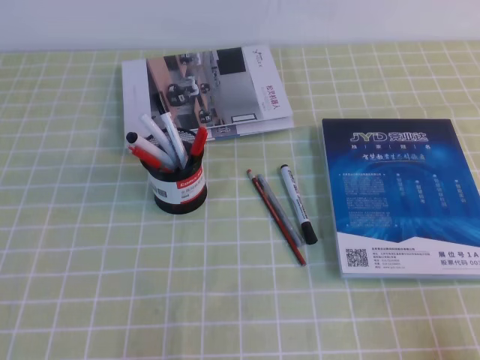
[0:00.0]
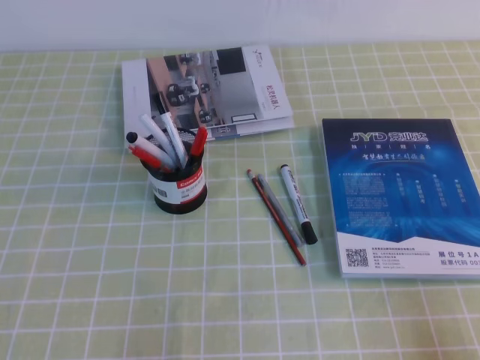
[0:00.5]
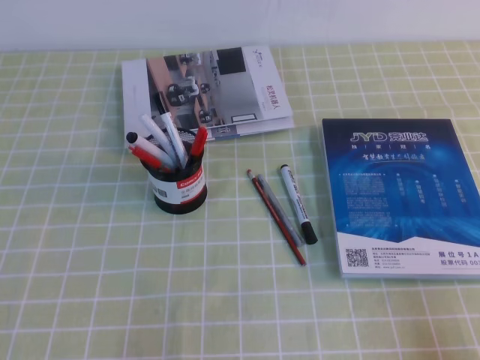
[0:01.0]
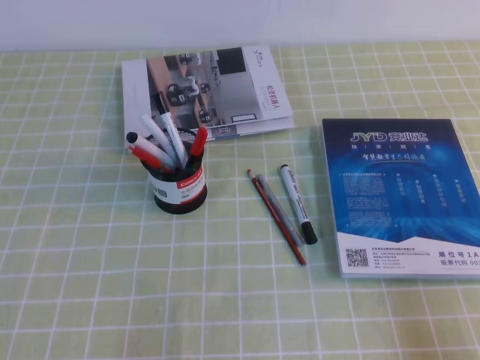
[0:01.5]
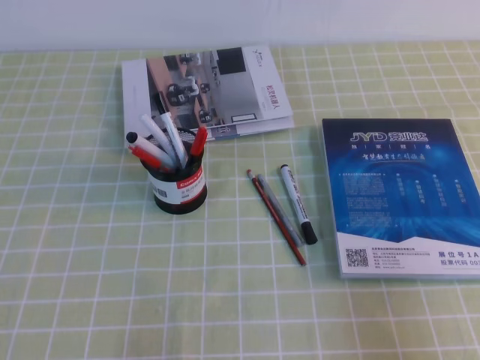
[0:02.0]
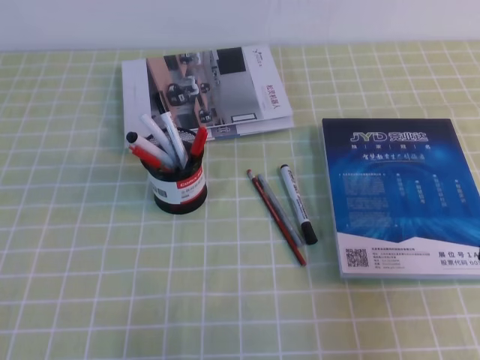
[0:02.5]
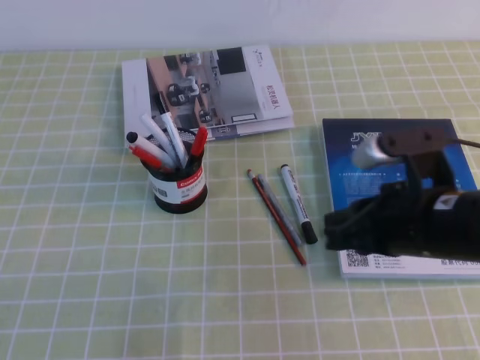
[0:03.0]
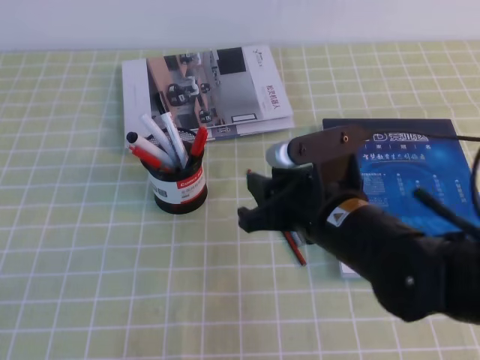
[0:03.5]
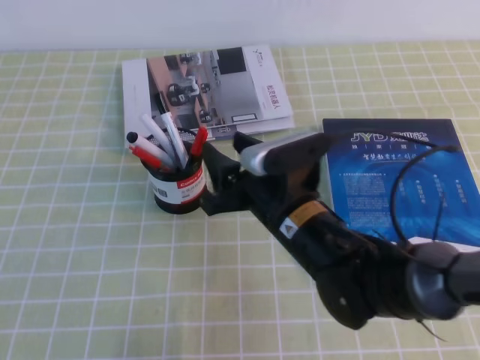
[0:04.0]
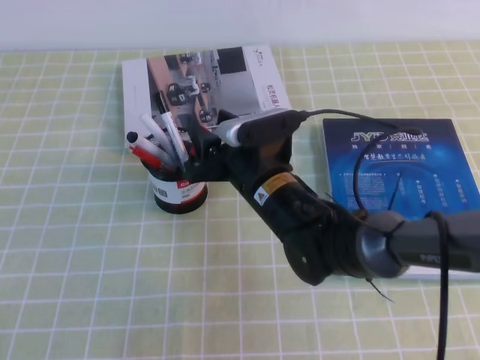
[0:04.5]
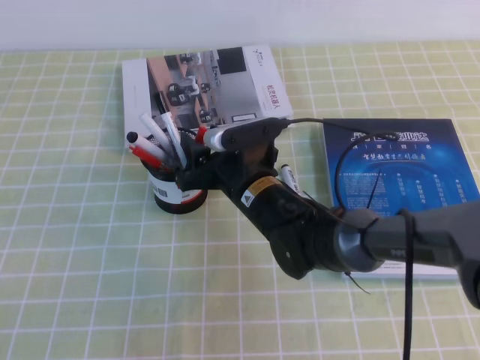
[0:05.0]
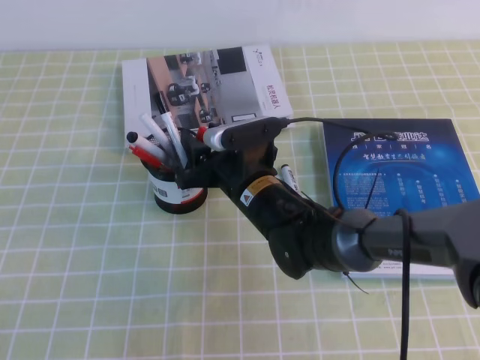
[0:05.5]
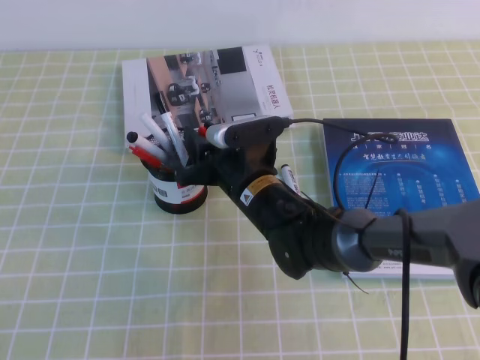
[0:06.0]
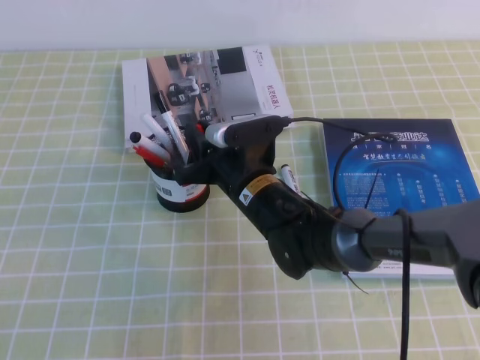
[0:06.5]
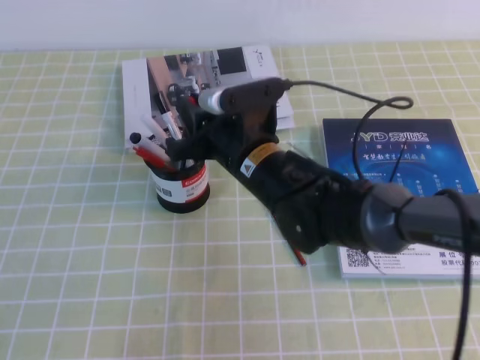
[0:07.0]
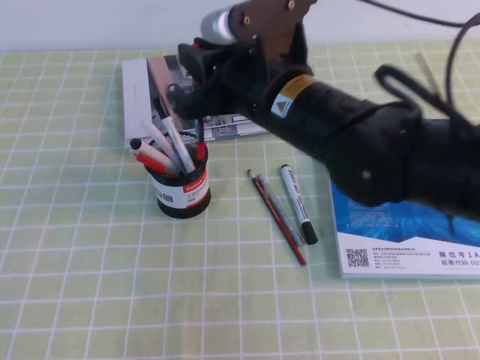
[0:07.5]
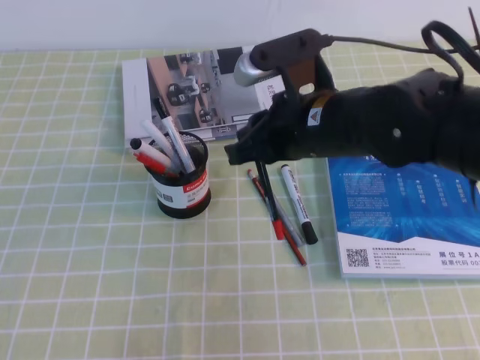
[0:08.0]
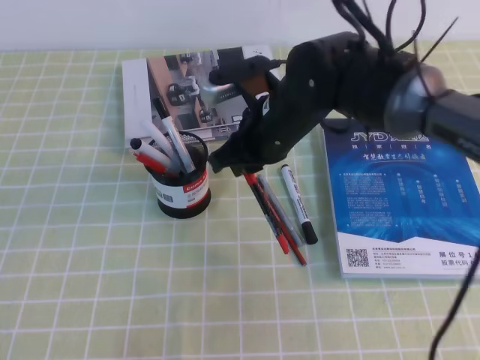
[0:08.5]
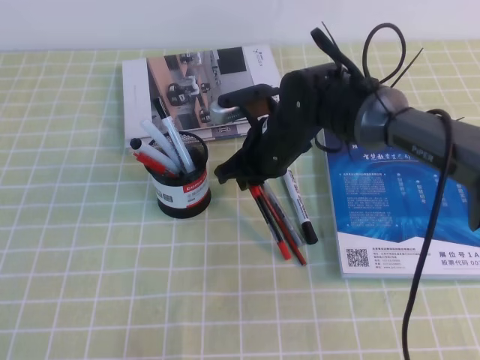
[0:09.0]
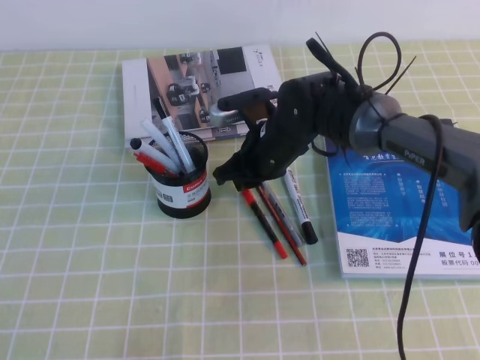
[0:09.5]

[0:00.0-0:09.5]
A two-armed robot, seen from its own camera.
0:00.0 to 0:02.0: The right gripper is displaced upward by some 5 cm.
0:02.0 to 0:04.0: The right gripper is displaced to the left and forward by roughly 35 cm, and opens.
0:04.0 to 0:05.5: The right gripper travels forward by roughly 5 cm.
0:05.5 to 0:07.5: The right gripper moves upward, some 15 cm, and closes its fingers.
0:07.5 to 0:09.5: The right gripper heads downward and forward, covering some 15 cm.

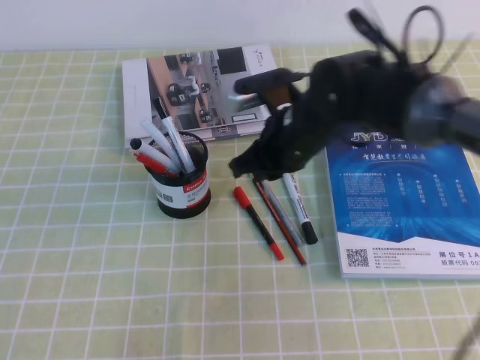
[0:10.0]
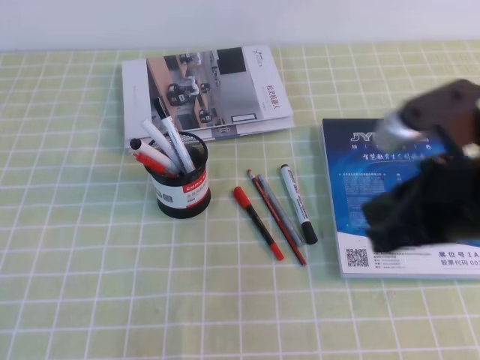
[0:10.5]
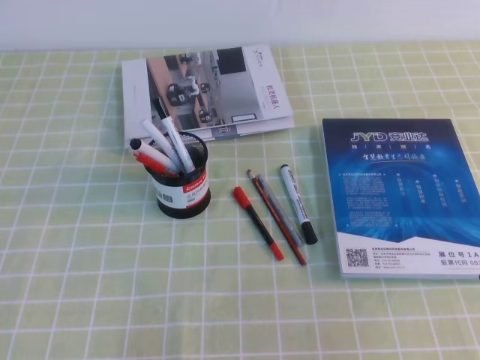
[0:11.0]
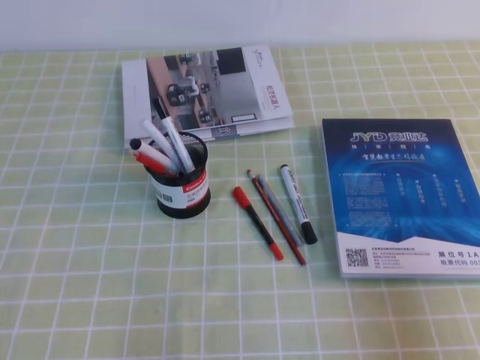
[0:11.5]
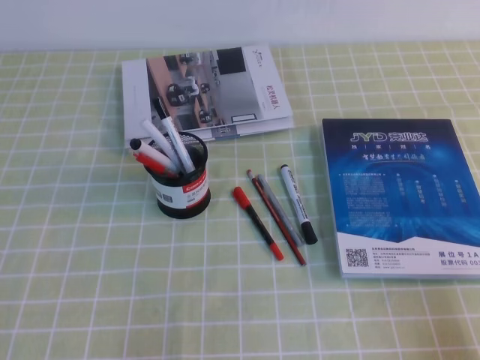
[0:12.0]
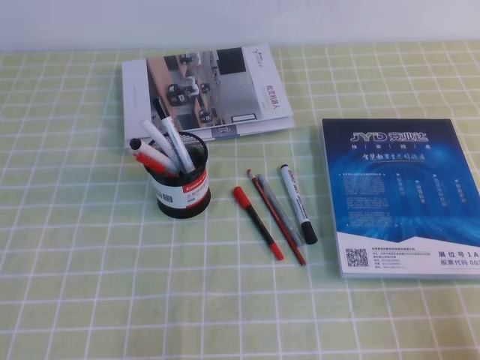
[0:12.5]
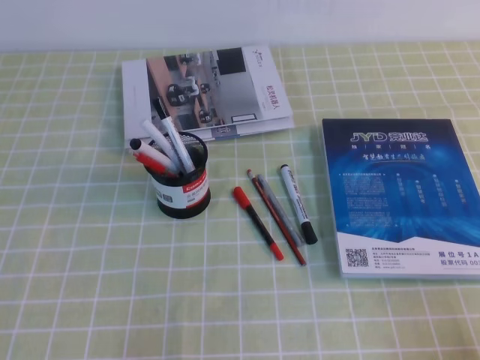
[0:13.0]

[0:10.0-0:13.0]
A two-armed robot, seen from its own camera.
Step, 0:10.0 to 0:13.0: Pick up the pen from the pen holder.
0:10.0 to 0:11.5: The right gripper shifts about 35 cm backward and to the right.
0:11.5 to 0:13.0: The right gripper goes some 5 cm downward.

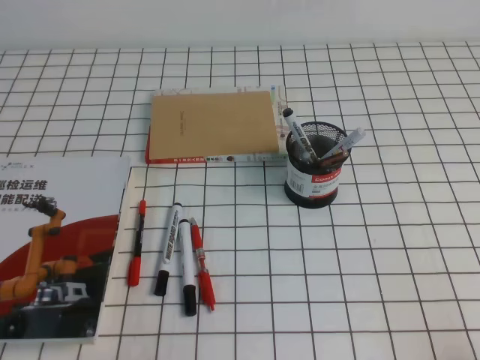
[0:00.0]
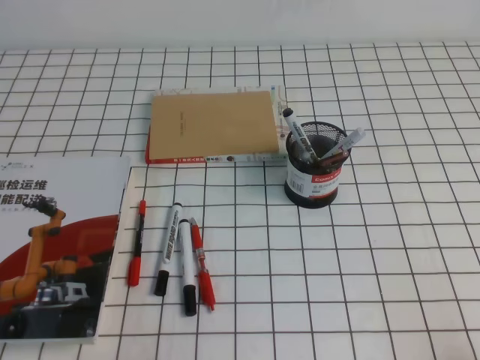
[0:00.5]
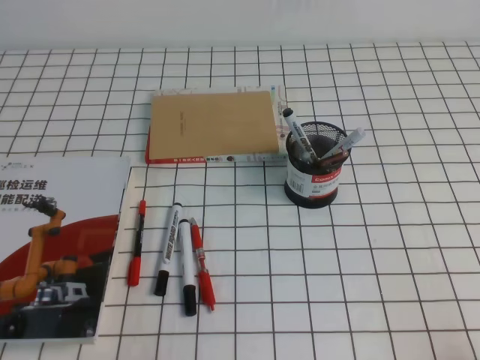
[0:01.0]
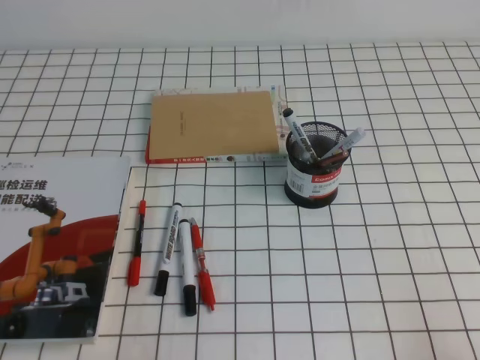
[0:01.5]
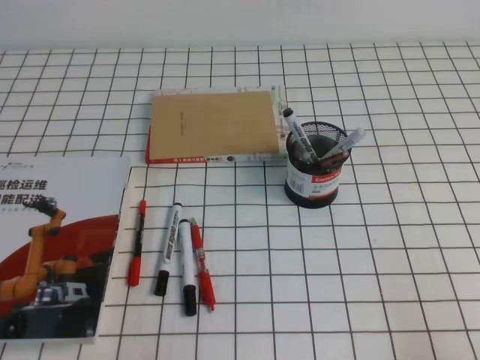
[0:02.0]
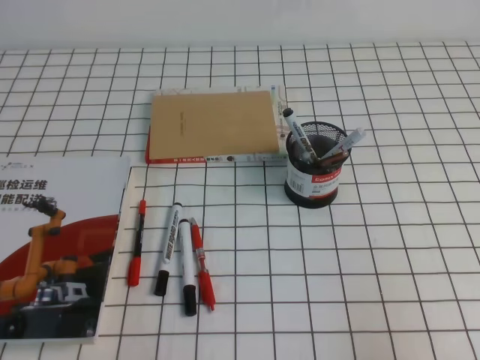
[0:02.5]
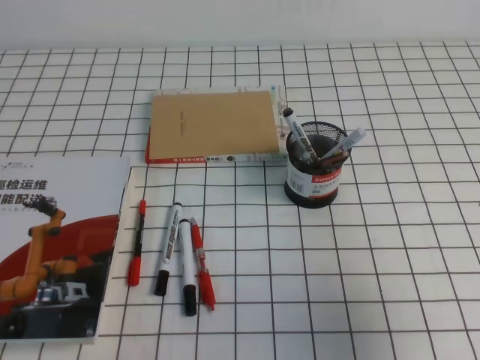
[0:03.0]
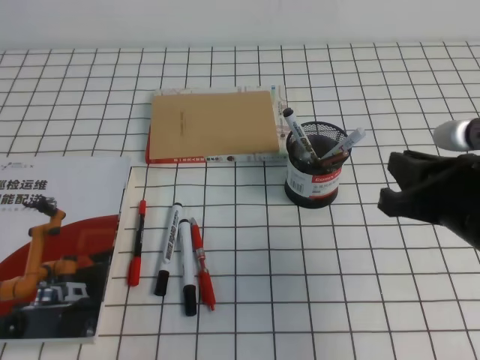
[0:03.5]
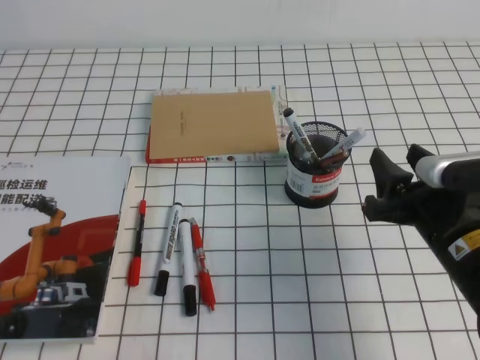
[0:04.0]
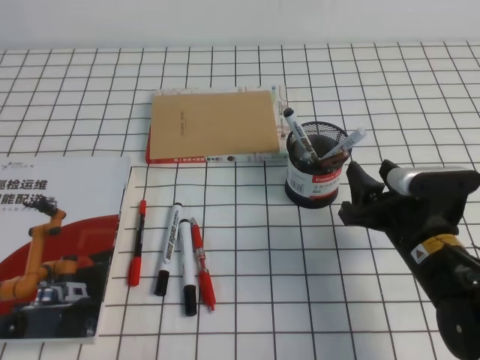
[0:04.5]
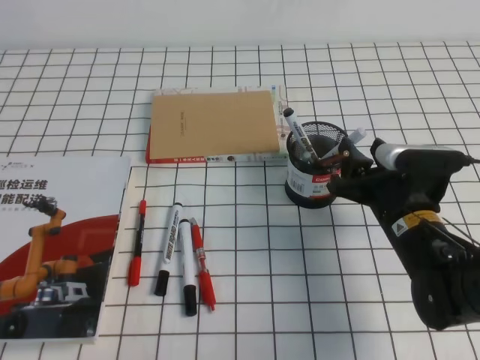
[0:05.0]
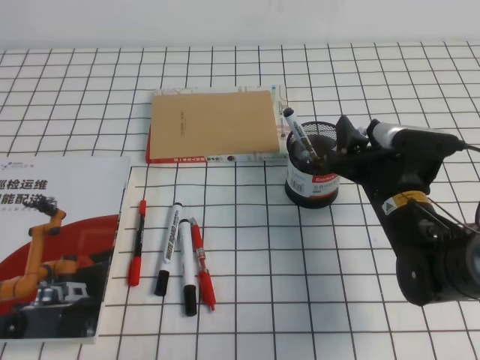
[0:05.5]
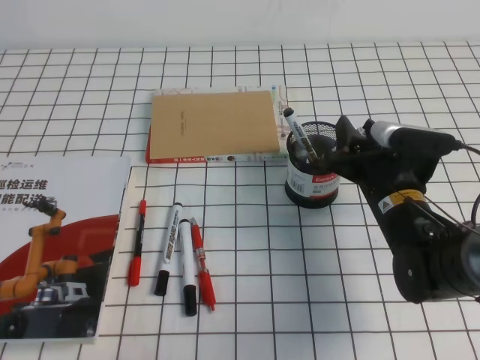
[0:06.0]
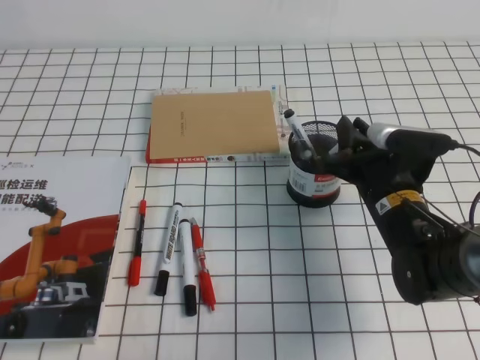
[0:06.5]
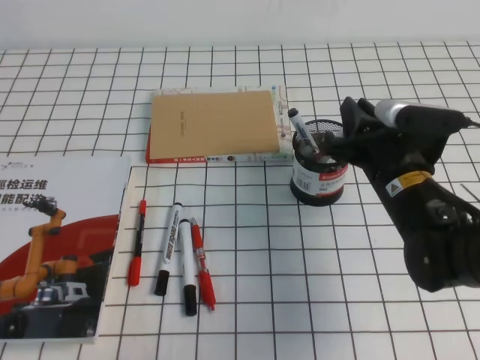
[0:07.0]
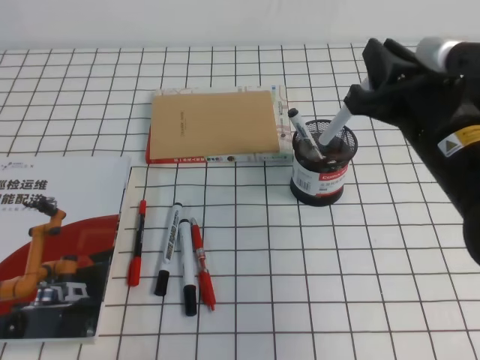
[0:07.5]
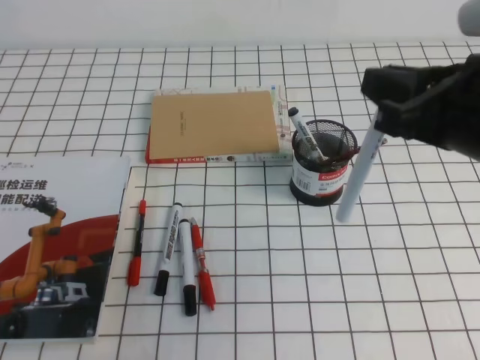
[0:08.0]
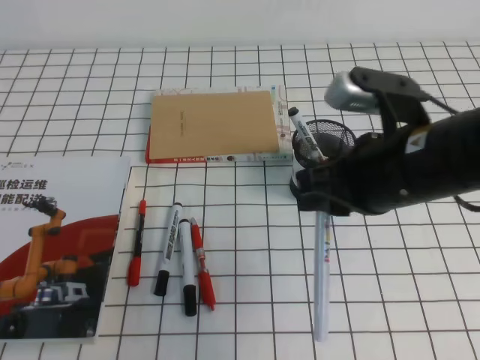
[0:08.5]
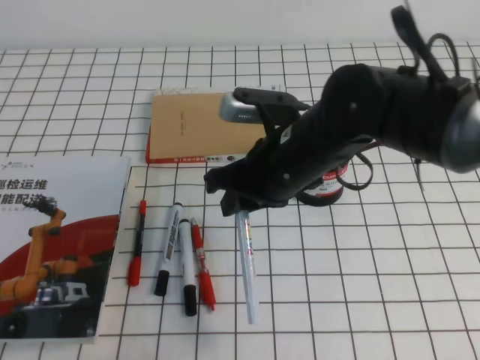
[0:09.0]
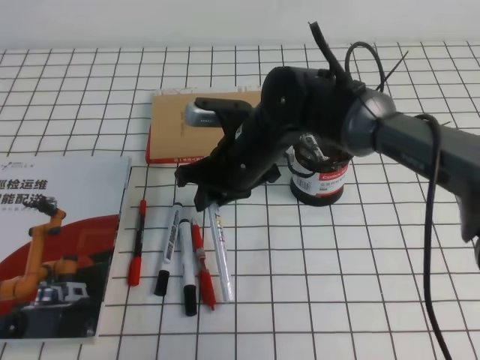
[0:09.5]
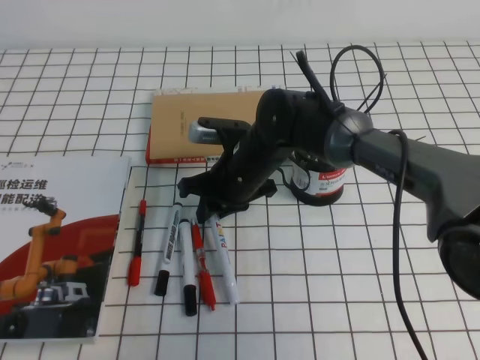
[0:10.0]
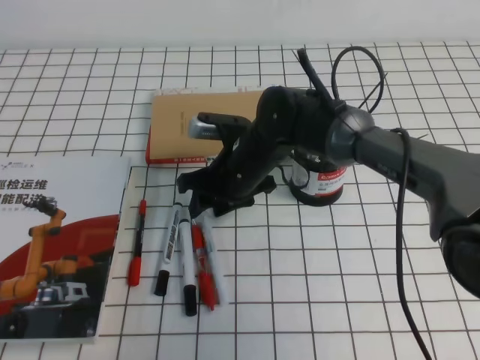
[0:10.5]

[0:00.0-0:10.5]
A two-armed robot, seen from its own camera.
0:02.0 to 0:04.0: The right gripper is displaced forward and to the left by roughly 20 cm, and opens up.
0:04.0 to 0:06.5: The right gripper travels forward by about 10 cm, and closes up.
0:06.5 to 0:08.5: The right gripper goes roughly 20 cm upward and backward.
0:08.5 to 0:10.5: The right gripper is displaced forward, to the left and downward by some 25 cm, and opens.

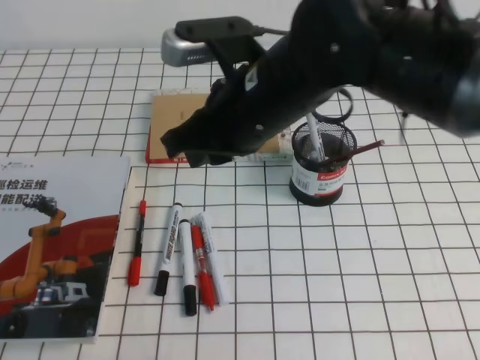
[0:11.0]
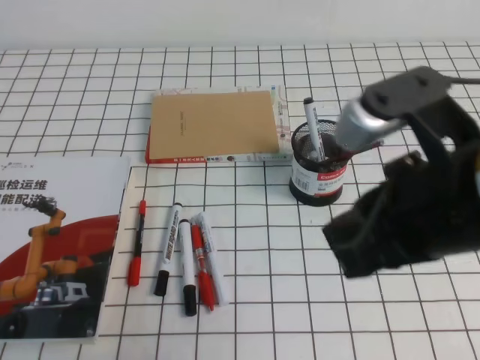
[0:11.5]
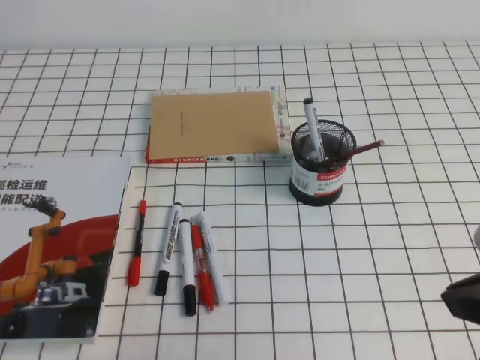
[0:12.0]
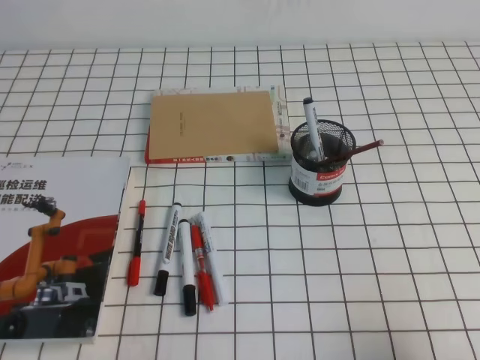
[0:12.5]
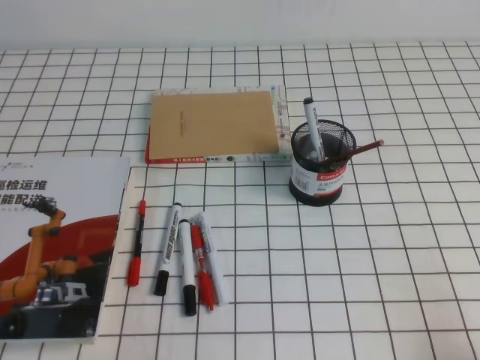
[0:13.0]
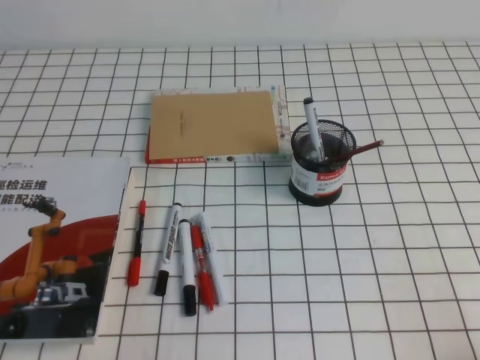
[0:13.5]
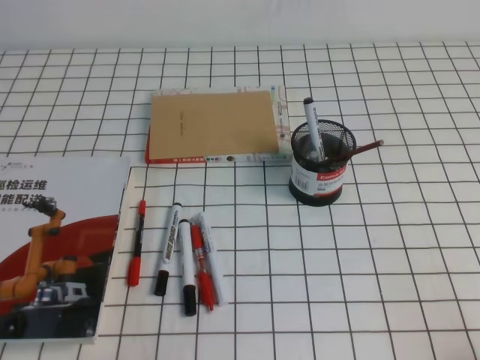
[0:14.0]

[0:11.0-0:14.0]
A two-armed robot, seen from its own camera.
Step, 0:11.0 to 0:14.0: Pick up the pen from the pen holder.
0:11.0 to 0:12.5: The right gripper is displaced to the right and backward by roughly 30 cm.
0:12.5 to 0:14.0: The right gripper heads downward and backward, covering about 10 cm.
